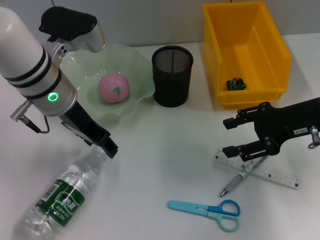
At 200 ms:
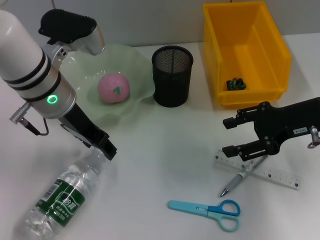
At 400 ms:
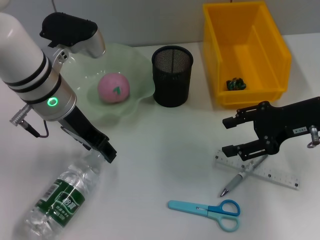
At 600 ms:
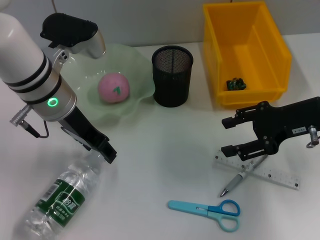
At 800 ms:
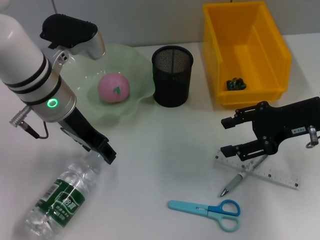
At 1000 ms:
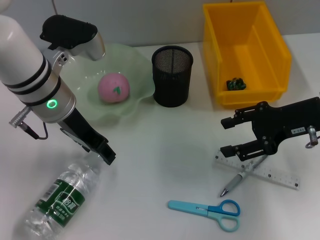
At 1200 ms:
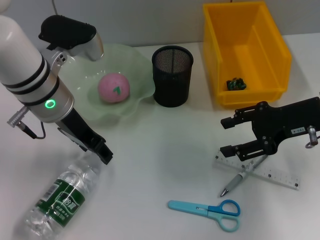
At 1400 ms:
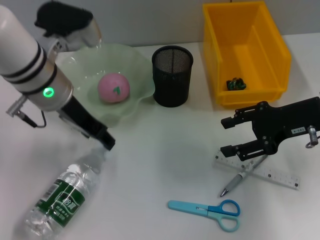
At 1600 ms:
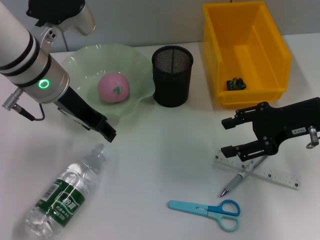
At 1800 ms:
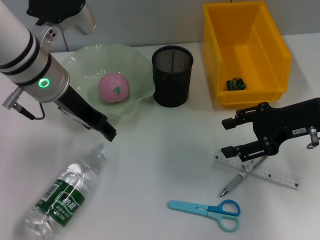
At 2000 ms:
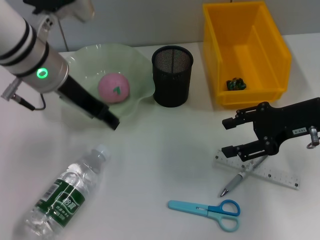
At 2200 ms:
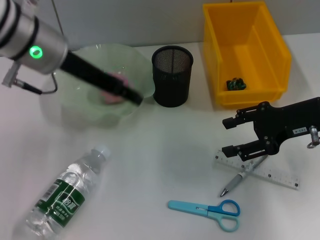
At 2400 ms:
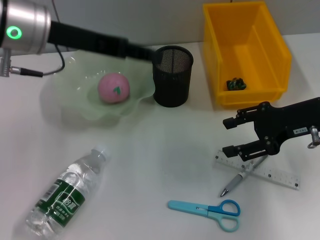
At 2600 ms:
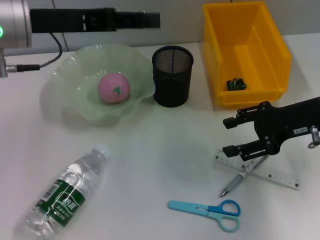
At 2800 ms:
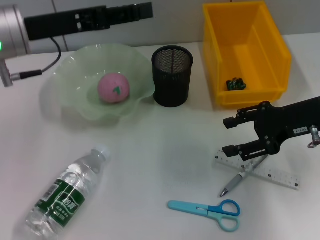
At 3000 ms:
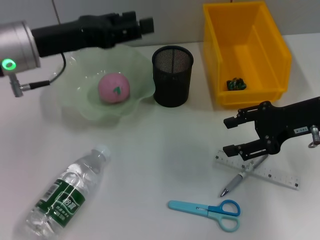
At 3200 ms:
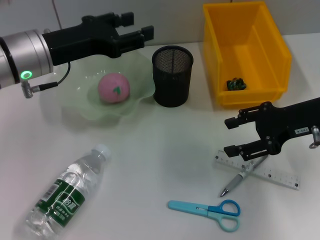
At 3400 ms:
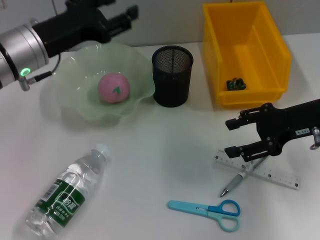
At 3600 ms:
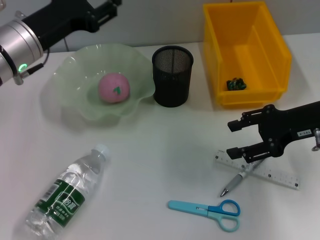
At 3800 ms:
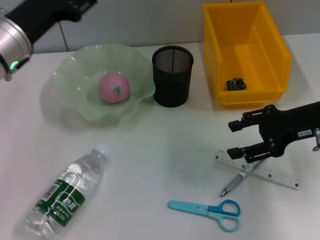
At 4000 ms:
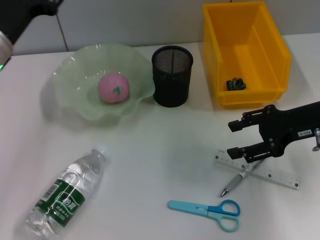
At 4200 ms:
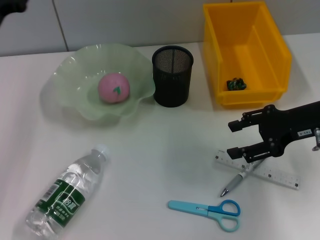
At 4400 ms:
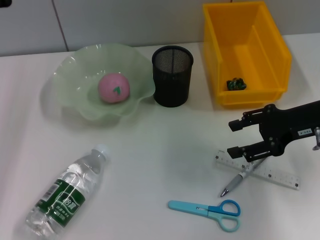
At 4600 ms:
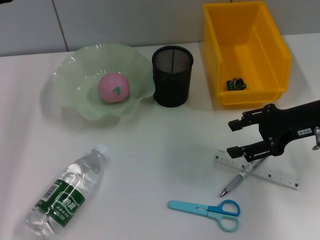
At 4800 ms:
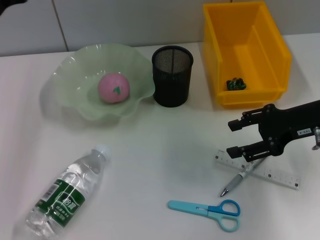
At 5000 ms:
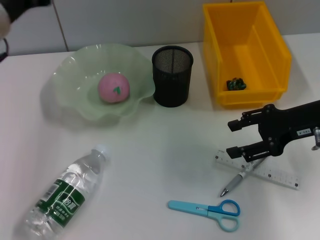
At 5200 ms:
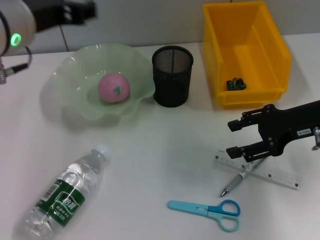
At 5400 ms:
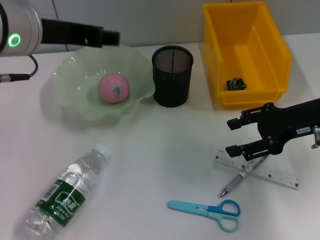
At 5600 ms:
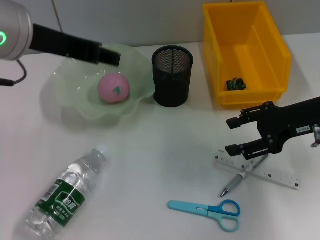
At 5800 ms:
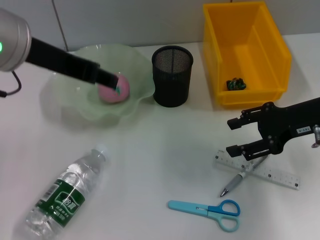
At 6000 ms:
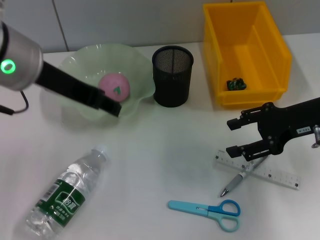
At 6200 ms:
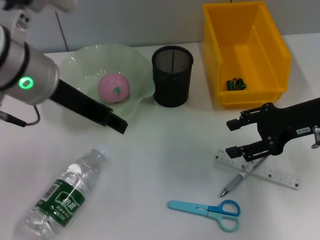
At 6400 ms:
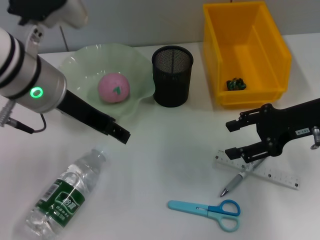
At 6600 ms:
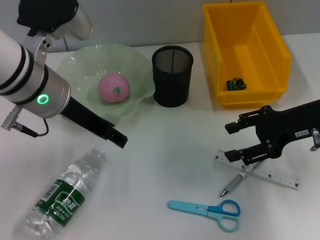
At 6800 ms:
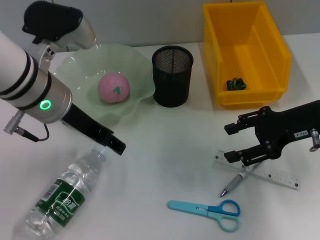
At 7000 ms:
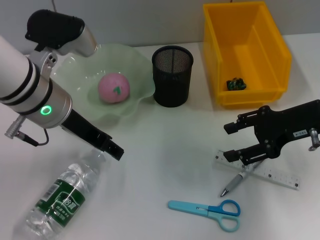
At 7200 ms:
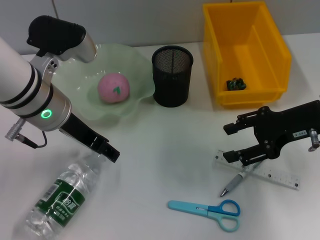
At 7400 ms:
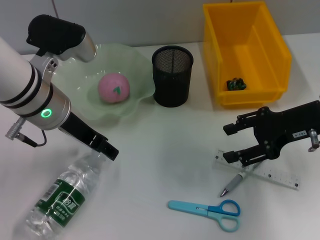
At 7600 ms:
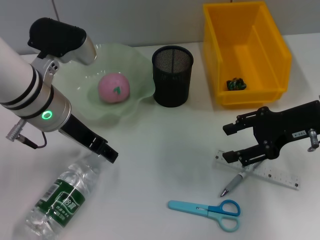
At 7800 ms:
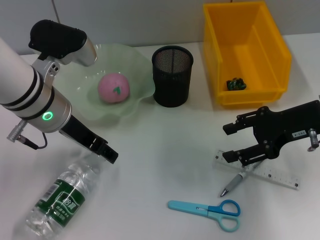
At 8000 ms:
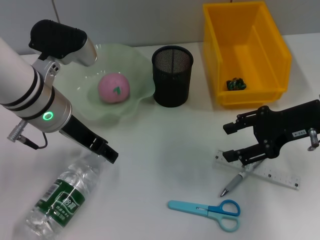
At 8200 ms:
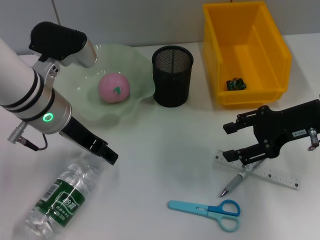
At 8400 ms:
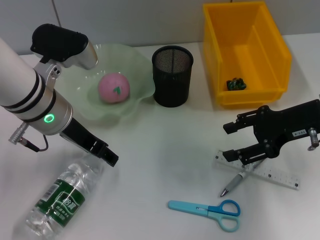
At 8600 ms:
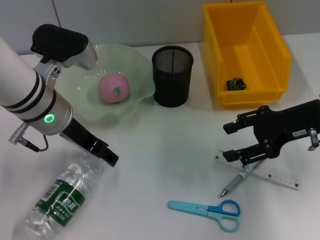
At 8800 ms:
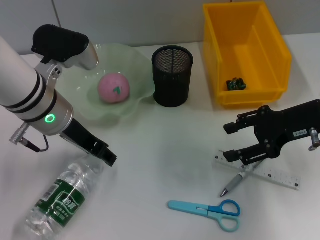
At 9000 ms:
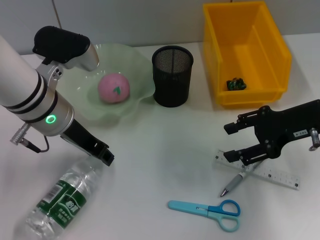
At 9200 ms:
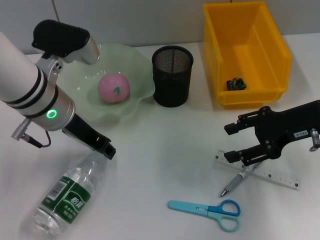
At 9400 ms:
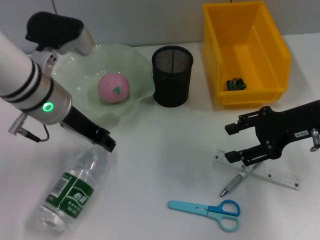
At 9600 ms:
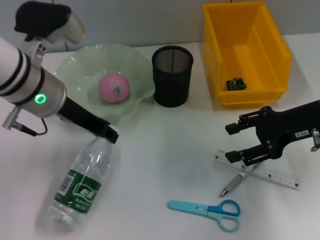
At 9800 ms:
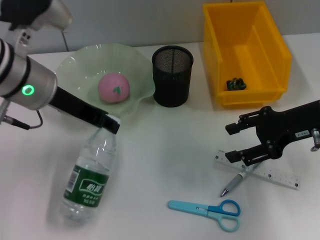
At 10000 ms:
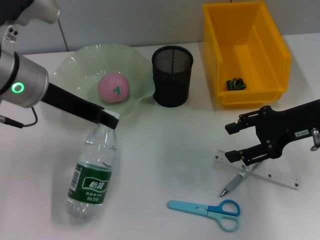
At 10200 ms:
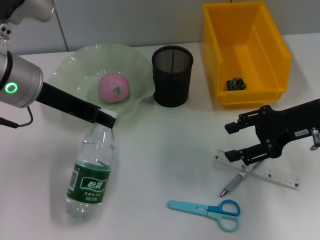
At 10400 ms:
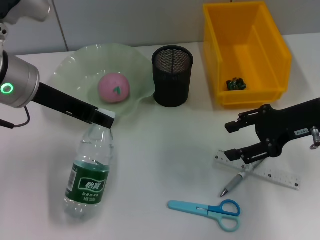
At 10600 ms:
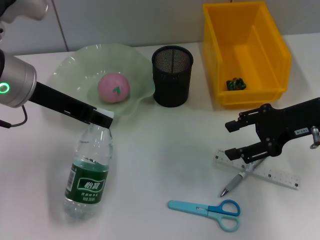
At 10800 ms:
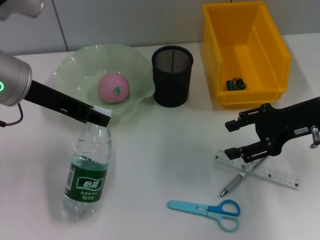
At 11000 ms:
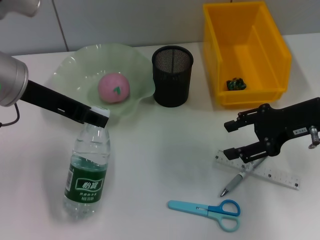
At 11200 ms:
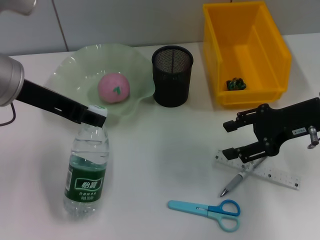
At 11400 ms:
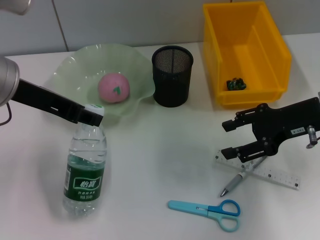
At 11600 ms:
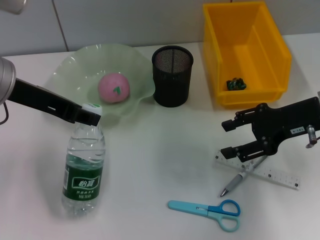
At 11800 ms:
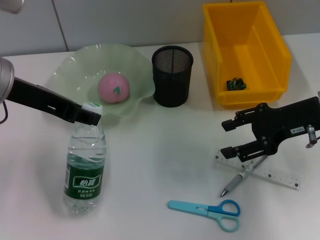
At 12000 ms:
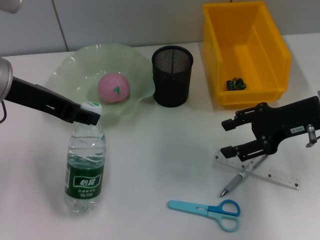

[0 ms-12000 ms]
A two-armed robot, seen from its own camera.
Step, 0 ms to 8800 ms: Grab the water bottle with the left hand.
0 ms to 1600 ms: The grippers make only small movements.
3000 ms to 4400 ms: The left gripper shifts some 5 cm to the left.
4400 ms to 6000 ms: The left gripper moves upward, to the right and backward, roughly 15 cm.
6000 ms to 7600 ms: The left gripper heads downward, covering some 10 cm.
7600 ms to 9000 ms: Both grippers stay put.
9000 ms to 10400 ms: The left gripper heads upward, covering about 5 cm, and closes its fingers.
10400 ms to 12000 ms: The grippers stay close to where they were, moving slightly.

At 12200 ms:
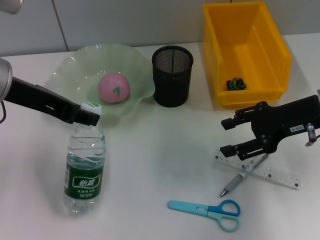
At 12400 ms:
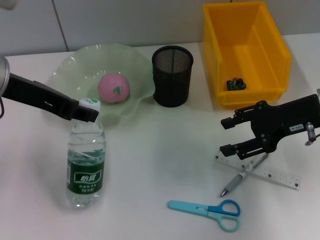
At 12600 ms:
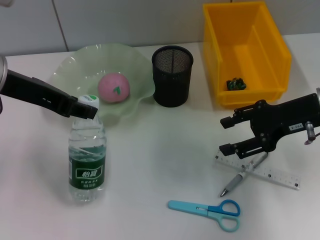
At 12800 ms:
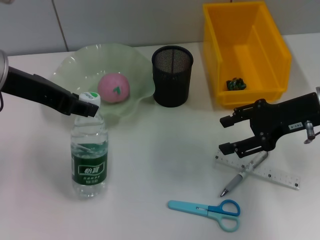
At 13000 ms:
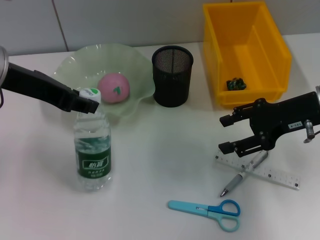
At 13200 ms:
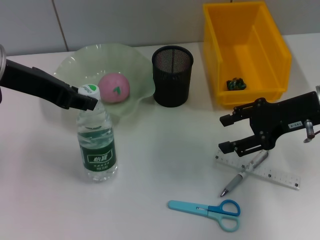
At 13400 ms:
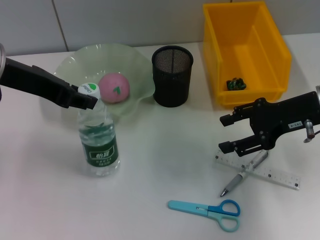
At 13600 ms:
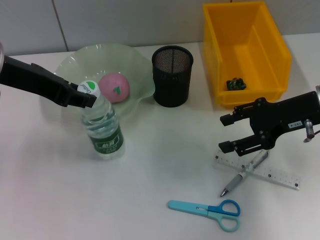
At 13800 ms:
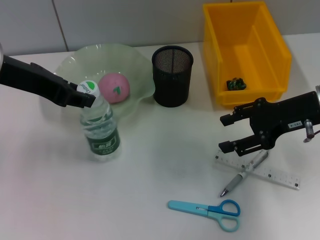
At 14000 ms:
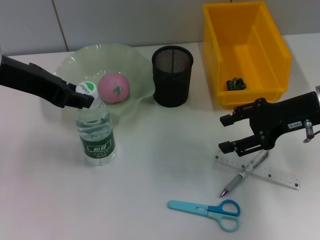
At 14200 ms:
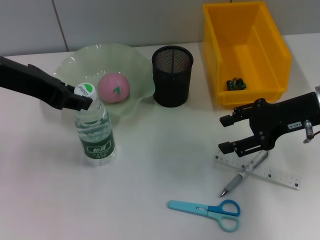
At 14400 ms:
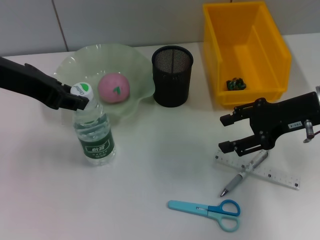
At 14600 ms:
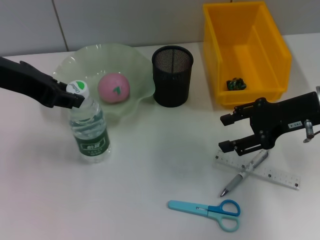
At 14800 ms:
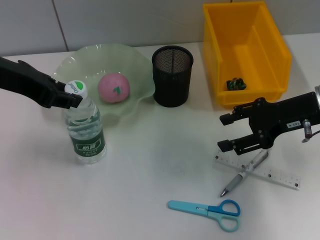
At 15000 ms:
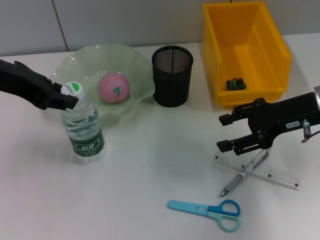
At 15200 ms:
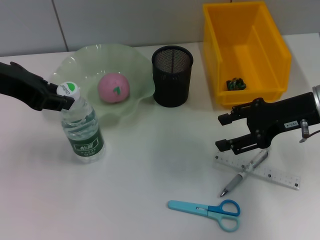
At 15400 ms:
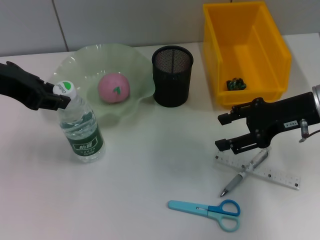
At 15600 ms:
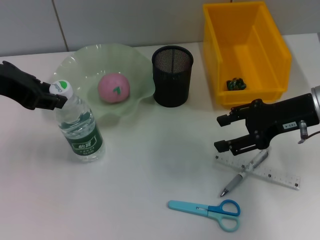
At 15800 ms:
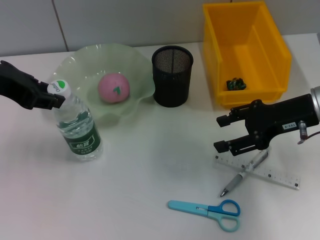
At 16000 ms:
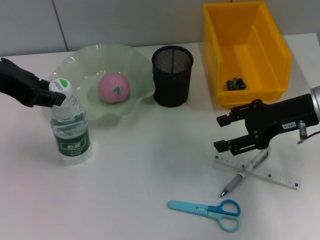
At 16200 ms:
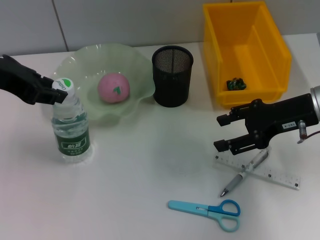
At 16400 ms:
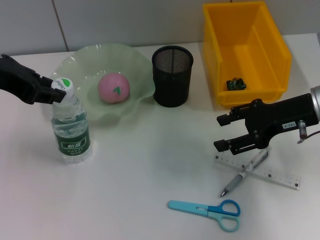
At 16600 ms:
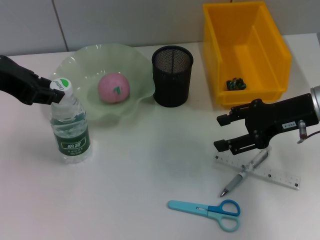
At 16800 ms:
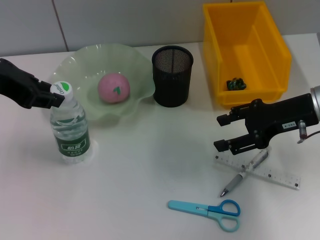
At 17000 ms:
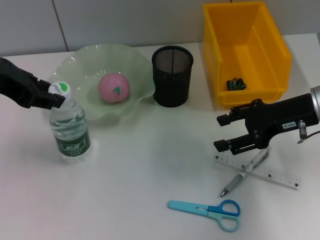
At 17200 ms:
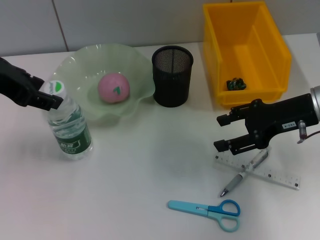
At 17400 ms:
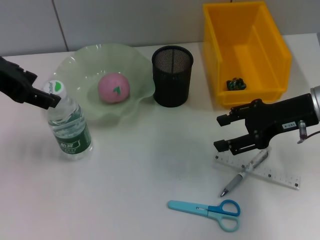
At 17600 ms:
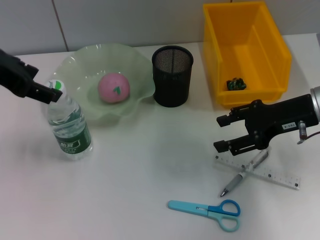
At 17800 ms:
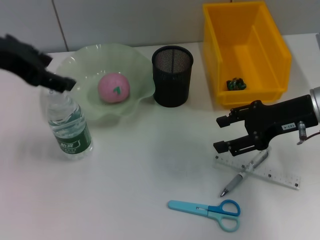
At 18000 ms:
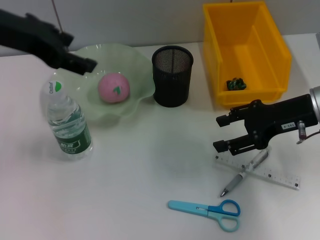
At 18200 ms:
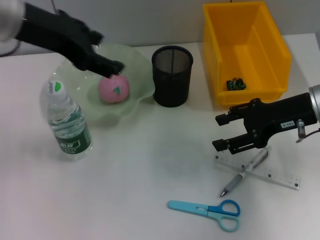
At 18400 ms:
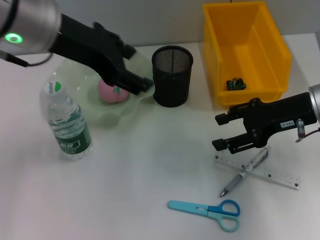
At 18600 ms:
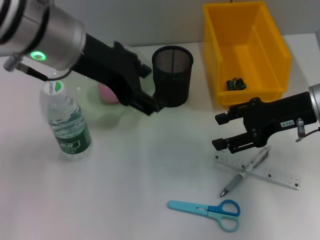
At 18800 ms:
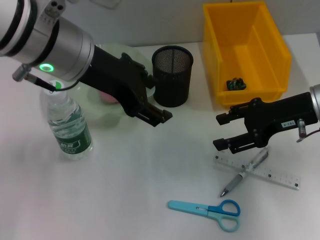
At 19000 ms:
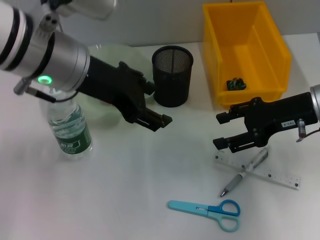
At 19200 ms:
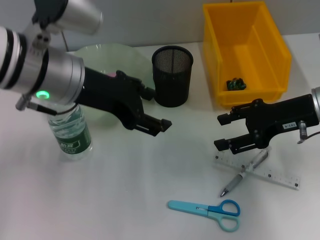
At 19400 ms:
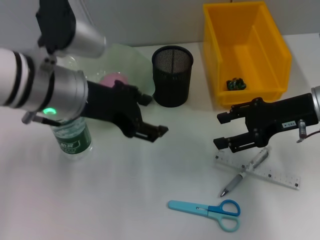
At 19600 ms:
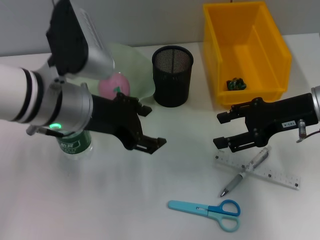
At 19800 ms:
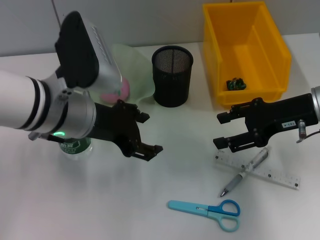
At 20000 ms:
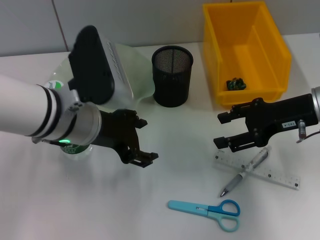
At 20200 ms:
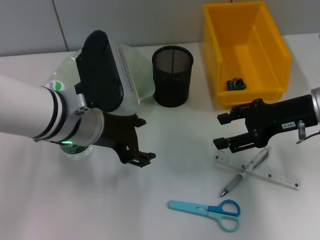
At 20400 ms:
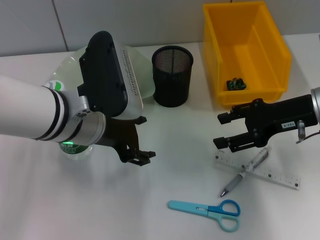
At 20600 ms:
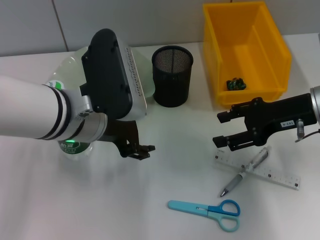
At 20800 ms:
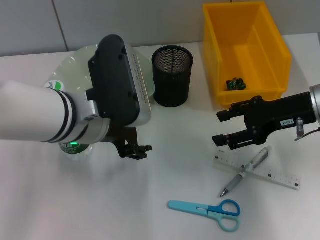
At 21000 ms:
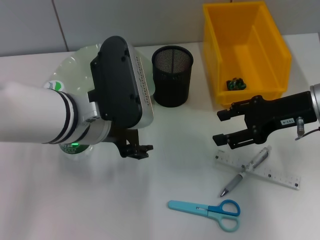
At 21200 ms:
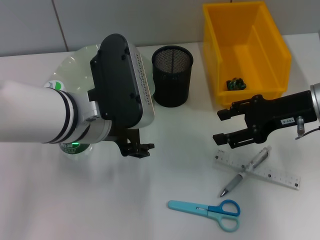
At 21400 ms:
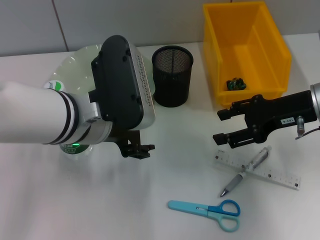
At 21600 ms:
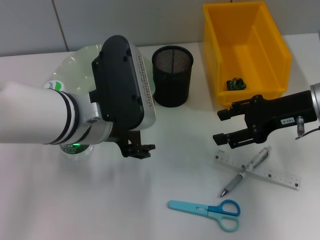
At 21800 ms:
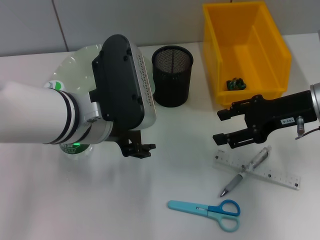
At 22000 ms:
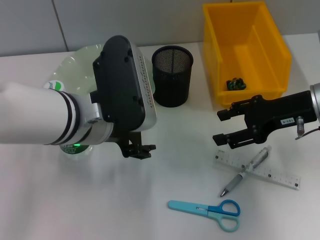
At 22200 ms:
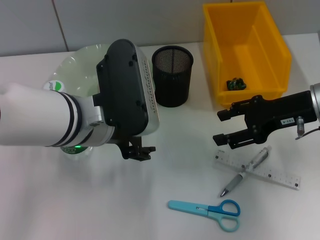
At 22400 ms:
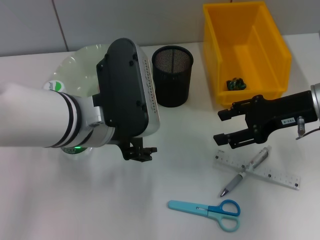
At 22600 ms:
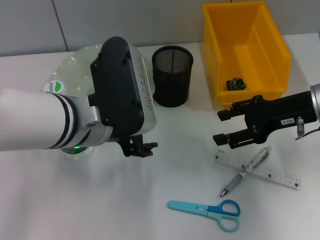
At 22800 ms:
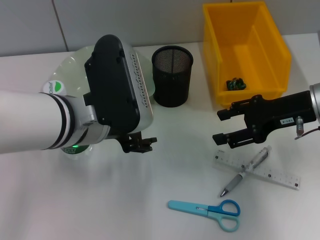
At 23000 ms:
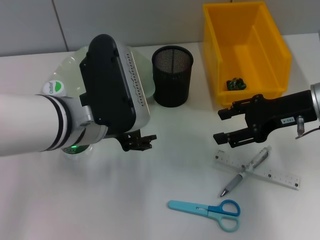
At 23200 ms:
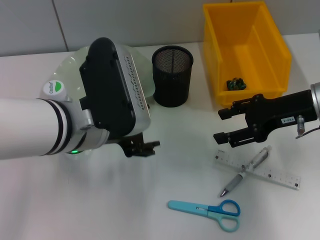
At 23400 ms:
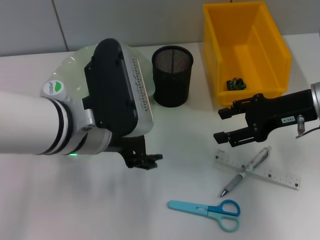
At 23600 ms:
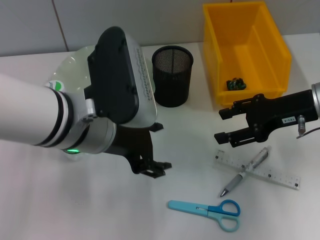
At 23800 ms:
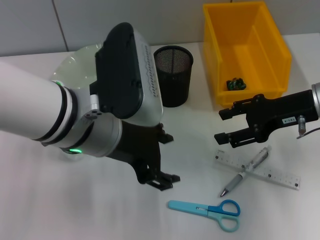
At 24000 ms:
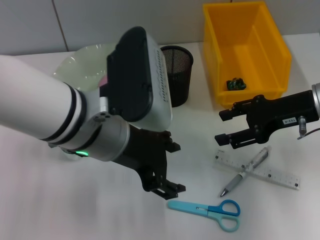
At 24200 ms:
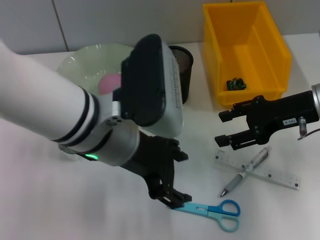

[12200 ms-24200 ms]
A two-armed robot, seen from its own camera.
Step, 12200 ms to 17000 ms: Place the water bottle on the table with the left hand.
12200 ms to 15200 ms: There are only small adjustments of the grippers.
15200 ms to 16600 ms: Neither gripper changes place.
16600 ms to 18200 ms: The left gripper moves to the right, roughly 5 cm, and opens.
18200 ms to 19800 ms: The left gripper shifts some 15 cm downward and to the right.
21200 ms to 22600 ms: Both grippers stay about where they are.
